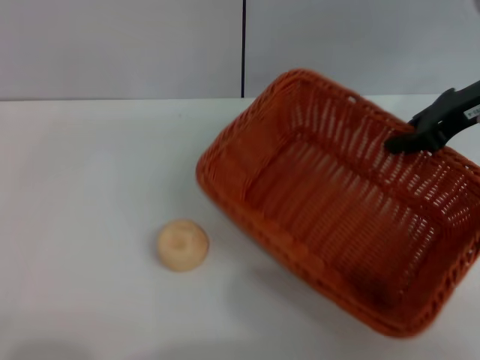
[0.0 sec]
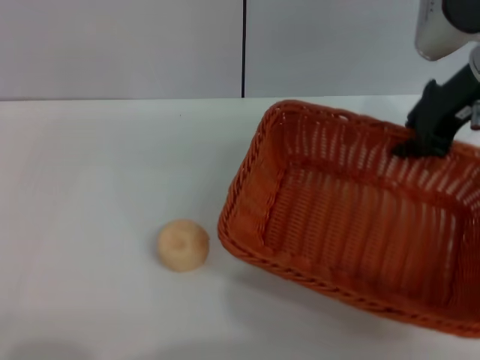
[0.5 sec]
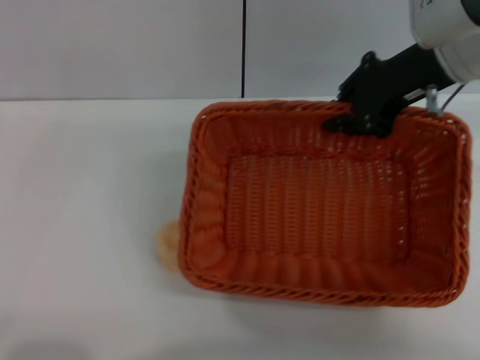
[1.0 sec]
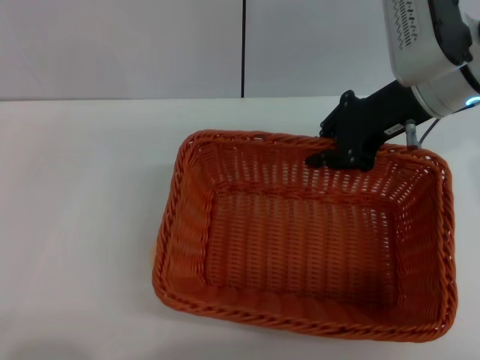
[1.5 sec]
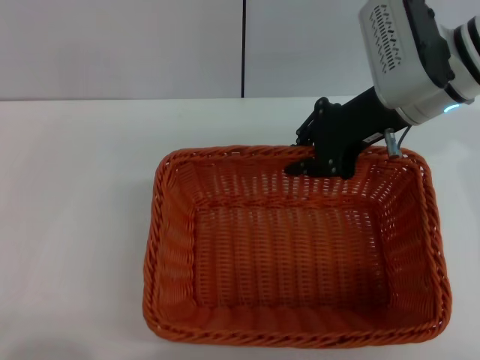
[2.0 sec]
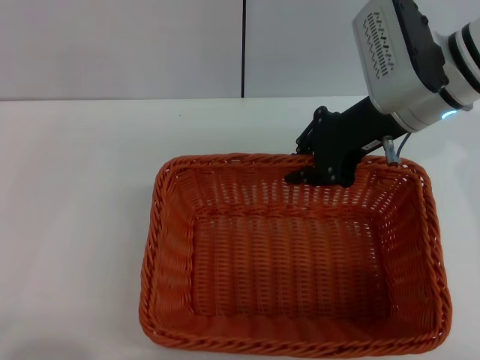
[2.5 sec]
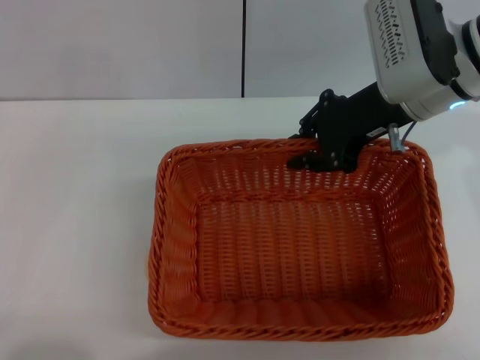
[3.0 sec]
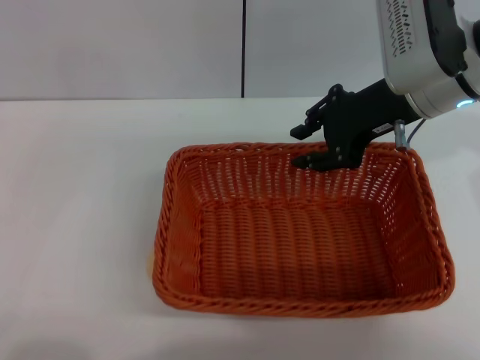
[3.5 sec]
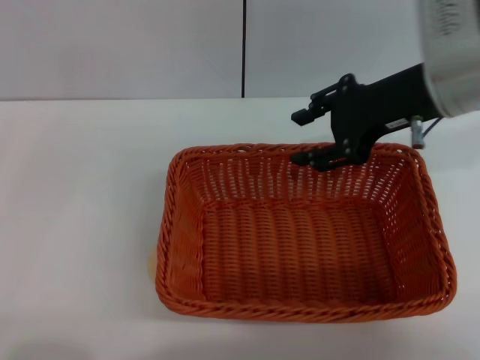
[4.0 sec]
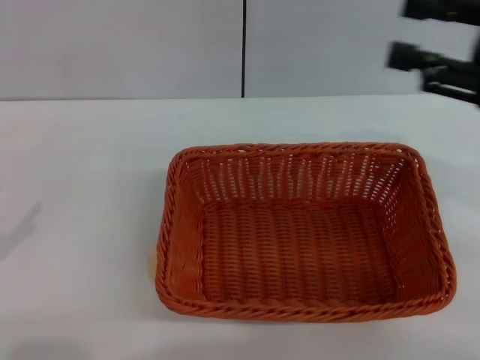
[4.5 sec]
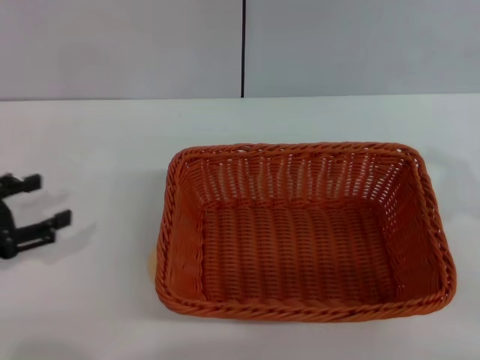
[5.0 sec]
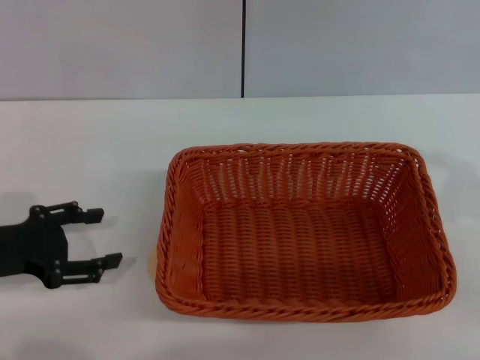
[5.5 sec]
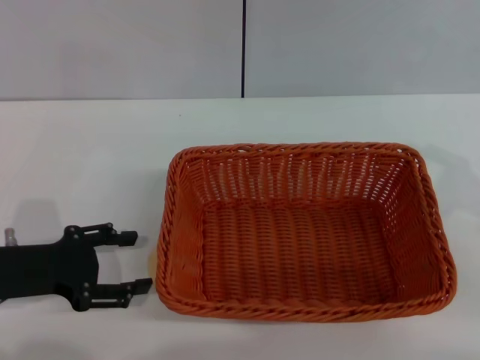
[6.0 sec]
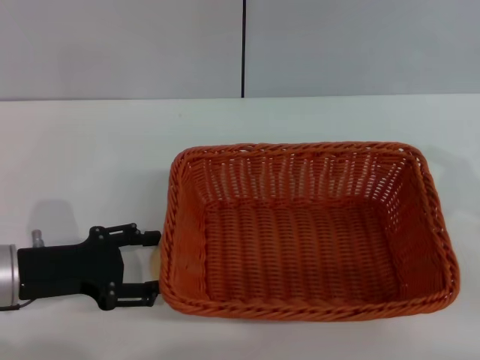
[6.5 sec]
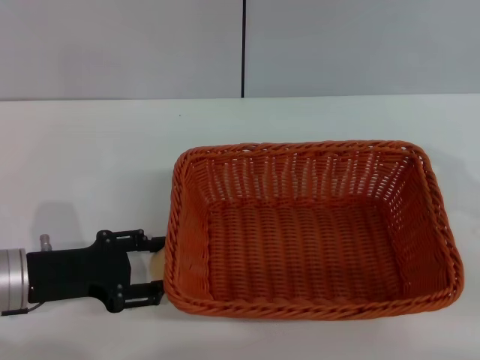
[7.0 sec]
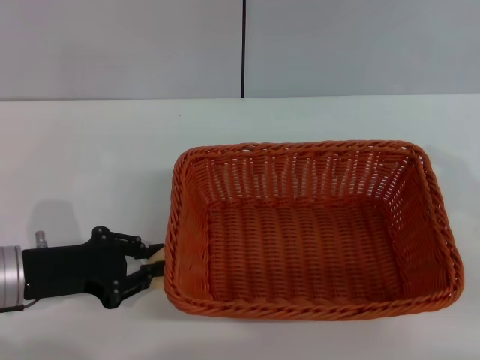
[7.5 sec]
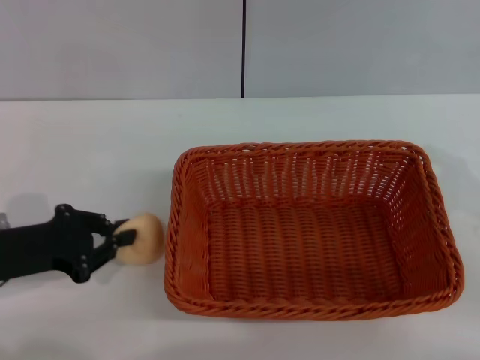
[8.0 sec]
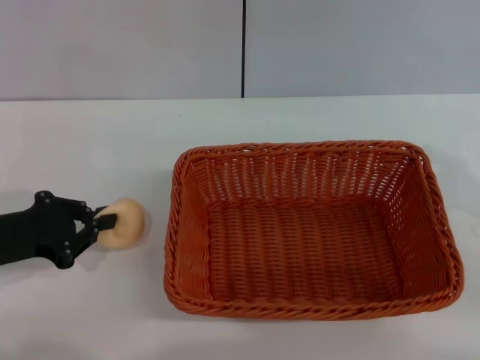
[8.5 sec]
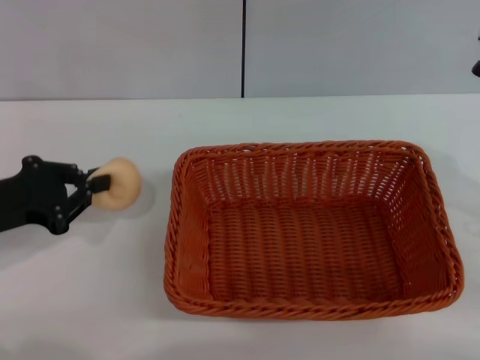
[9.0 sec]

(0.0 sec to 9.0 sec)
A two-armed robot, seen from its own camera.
Step, 0.0 sec - 4.0 sec: Move the basket to the center of view with the right gripper.
Step, 4.5 sec - 8.5 sec: Pick up the egg yolk pastry with the left gripper.
0.0 sec - 2.0 sec: The right gripper shifts roughly 10 cm to the left.
2.0 sec - 4.5 sec: The right gripper is displaced to the right, backward and upward by roughly 15 cm, and opens up.
4.5 sec - 7.0 sec: The left gripper heads to the right and forward, covering roughly 15 cm. The right gripper is displaced downward and to the right by approximately 5 cm.
7.0 sec - 9.0 sec: The left gripper ends up about 5 cm from where it was, and closes its fingers.

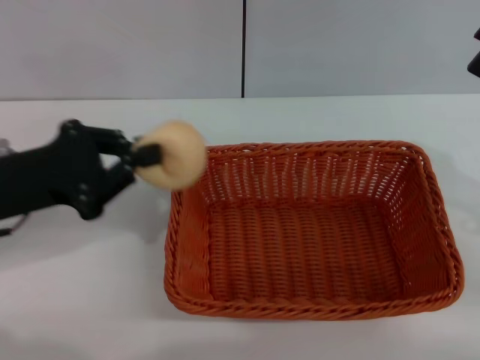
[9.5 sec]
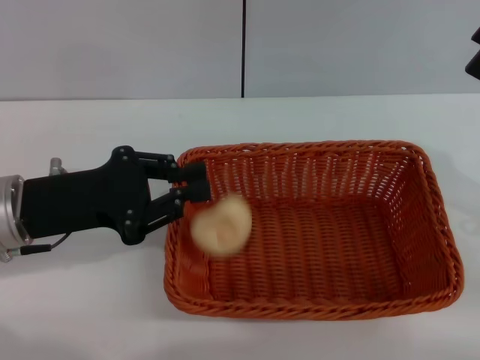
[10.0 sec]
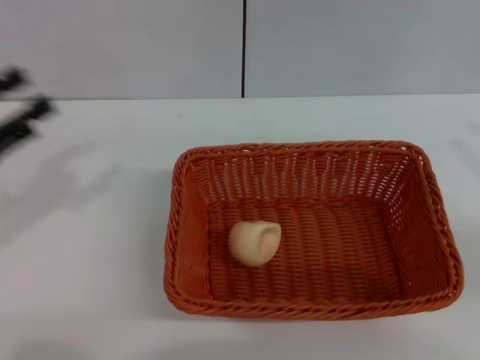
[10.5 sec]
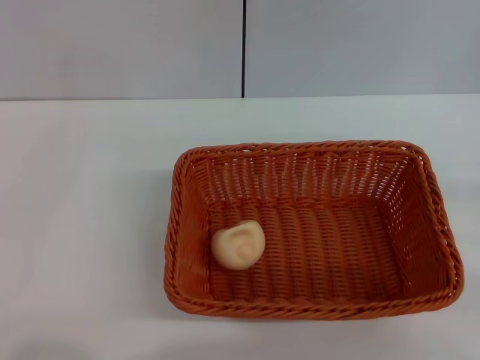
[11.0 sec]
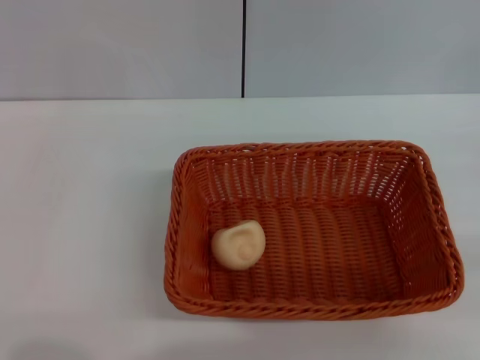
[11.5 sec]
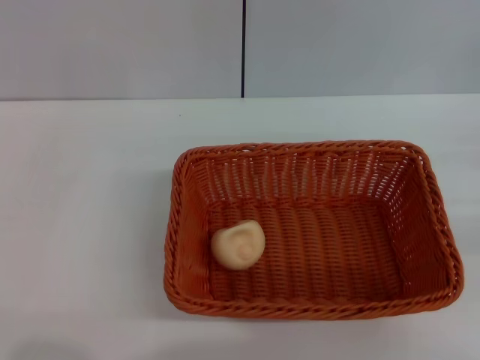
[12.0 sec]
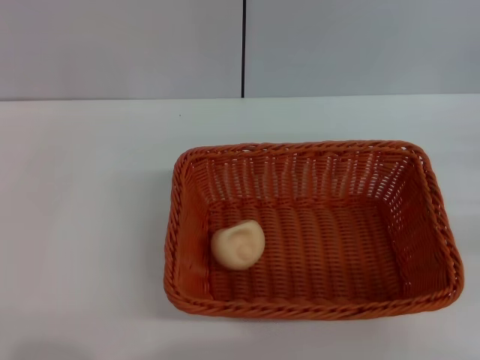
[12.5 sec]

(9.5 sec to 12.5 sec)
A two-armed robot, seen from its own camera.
9.5 sec - 11.0 sec: The right gripper shifts roughly 15 cm to the right; the left gripper goes approximately 20 cm to the left and backward, and opens up.
